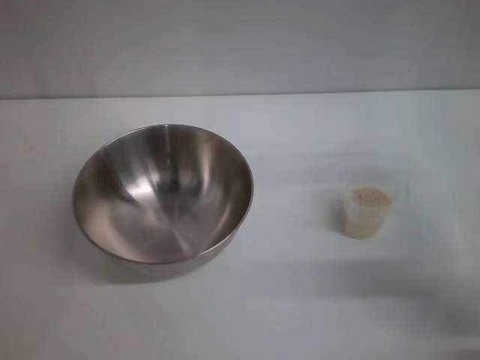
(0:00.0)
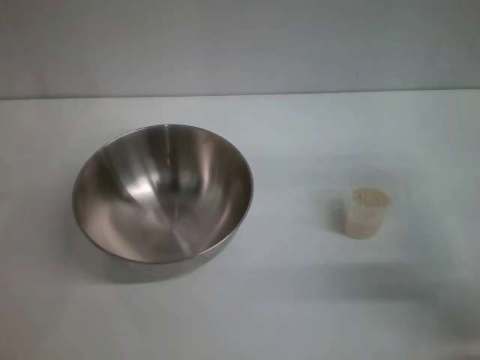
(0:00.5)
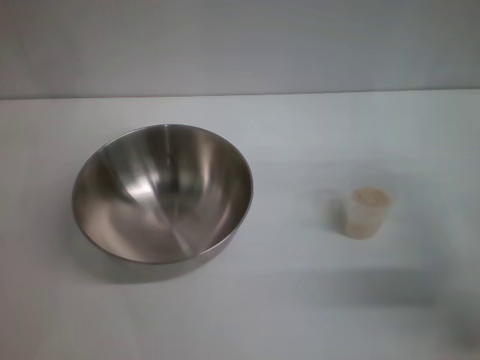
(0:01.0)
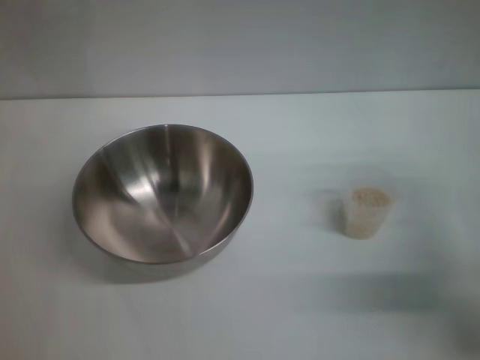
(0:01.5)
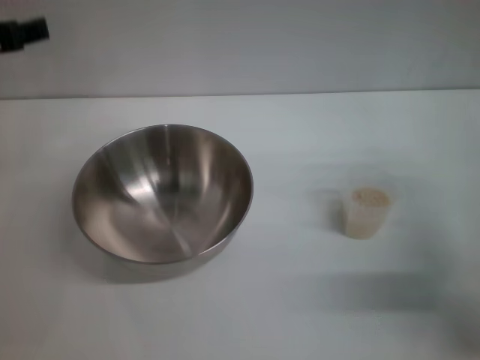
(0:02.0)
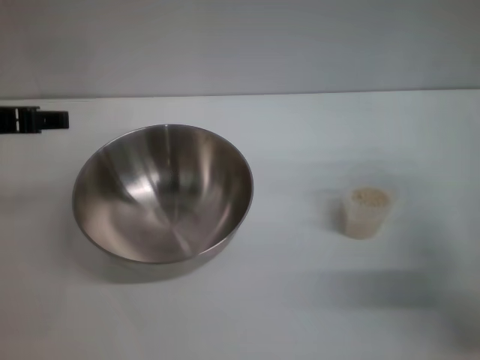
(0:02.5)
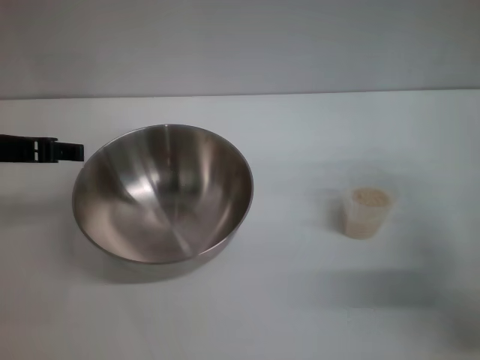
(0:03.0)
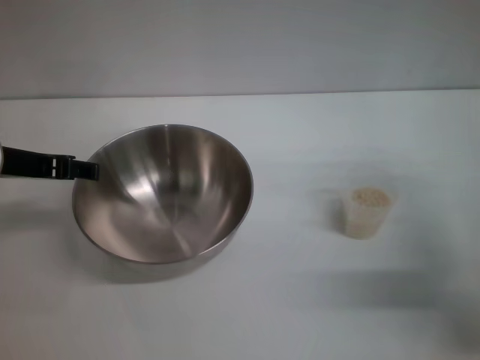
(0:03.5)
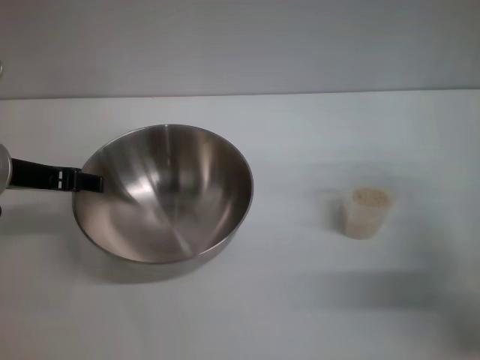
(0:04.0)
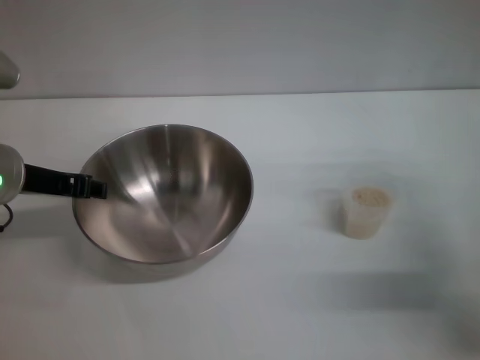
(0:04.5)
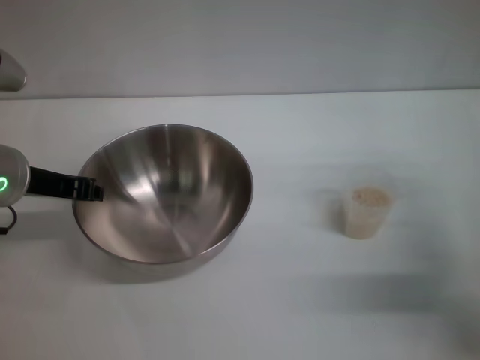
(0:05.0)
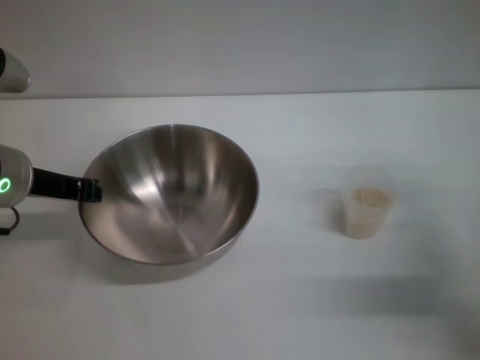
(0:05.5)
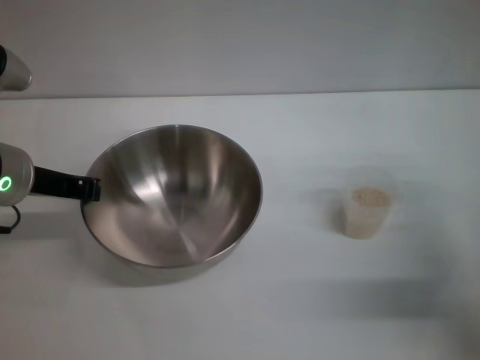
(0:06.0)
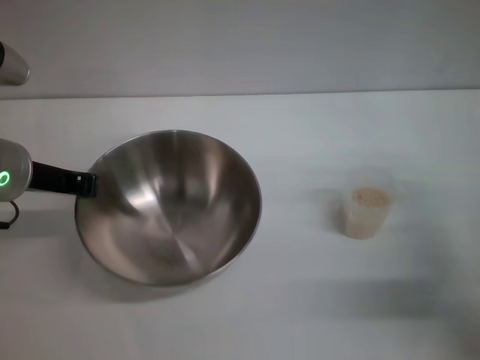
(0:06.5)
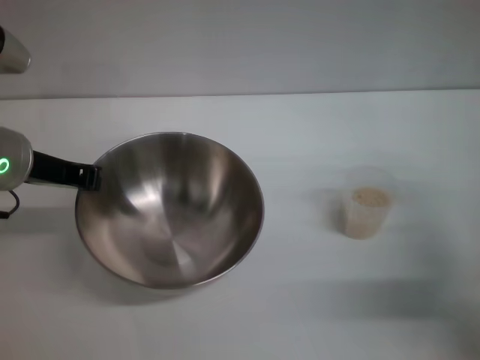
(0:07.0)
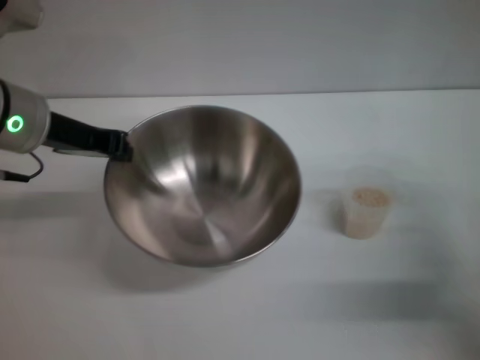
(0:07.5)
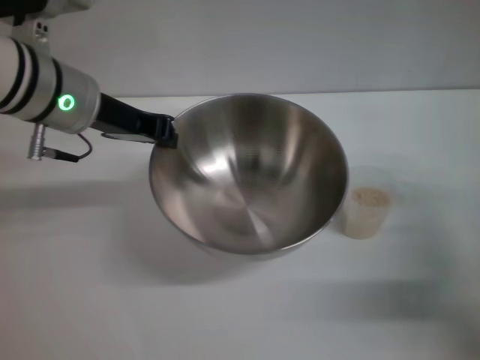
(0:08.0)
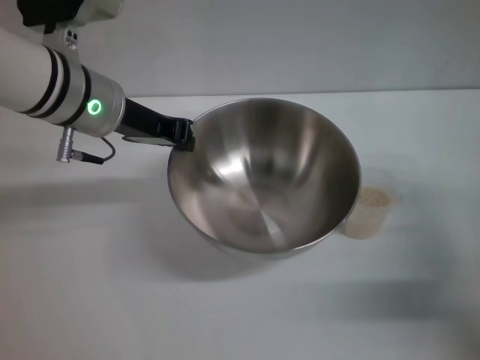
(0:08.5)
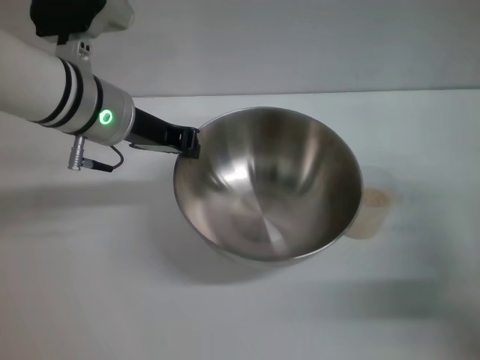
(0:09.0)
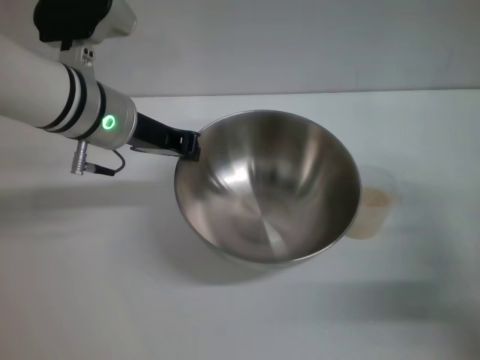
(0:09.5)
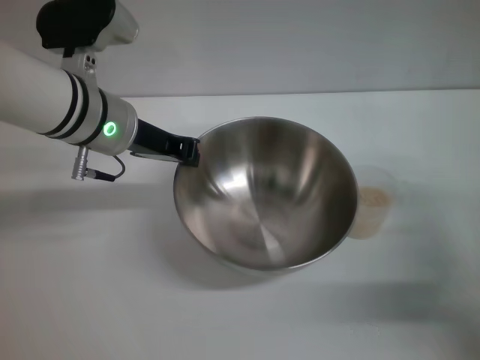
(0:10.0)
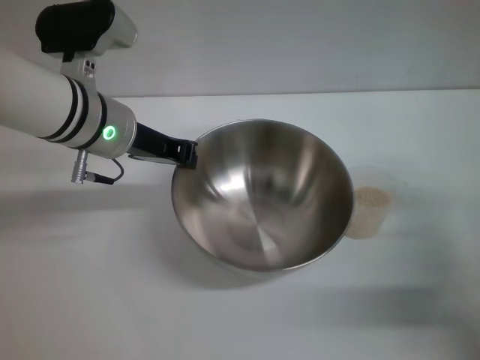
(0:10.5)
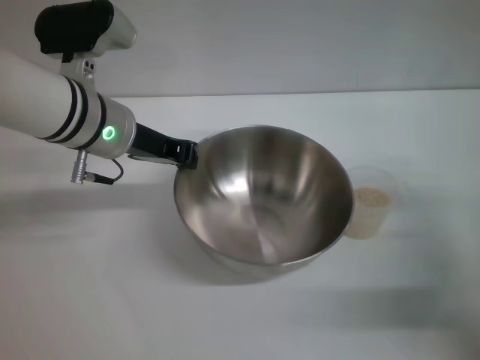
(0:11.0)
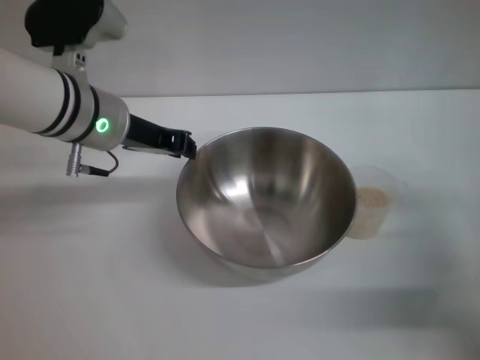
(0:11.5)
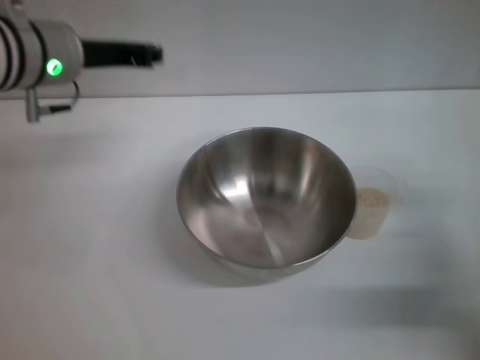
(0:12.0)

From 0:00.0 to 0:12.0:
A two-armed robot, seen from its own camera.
Task of the whole recording: Place the bowl in the middle of the table with one hand and pour the rice from the grain cup into it with the other hand.
Step, from 0:00.0 to 0:07.5: Pick up the bowl with the left gripper.
Step, from 0:08.0 to 0:11.5: Place the bowl in the center of view with the left gripper.
From 0:00.0 to 0:02.0: The left gripper shifts about 15 cm upward.
From 0:02.0 to 0:04.0: The left gripper is displaced downward by some 10 cm.
From 0:04.0 to 0:06.0: The left gripper closes its fingers.
From 0:06.0 to 0:08.0: The left gripper moves to the right, roughly 5 cm.
From 0:10.0 to 0:12.0: The left gripper moves upward, some 5 cm.

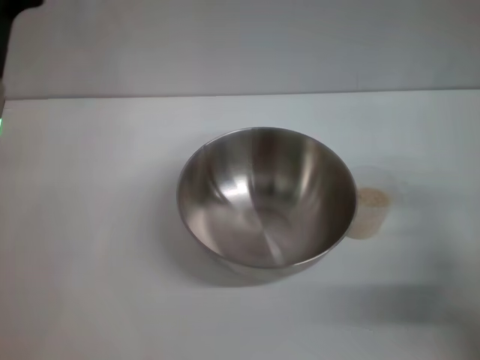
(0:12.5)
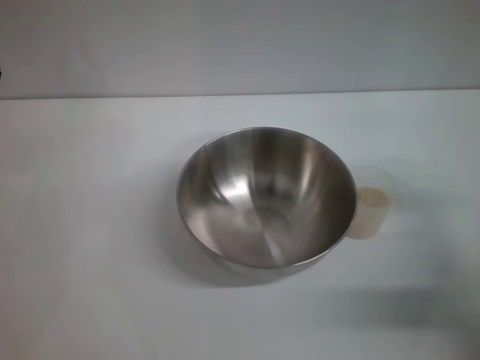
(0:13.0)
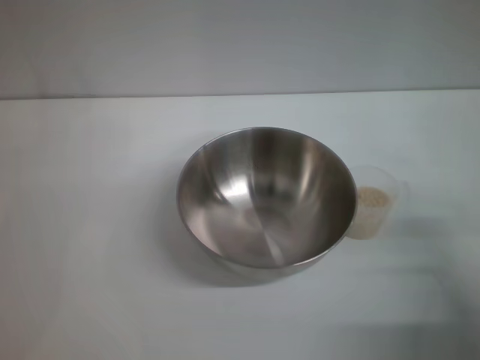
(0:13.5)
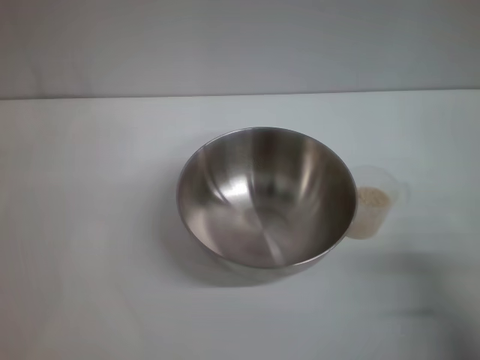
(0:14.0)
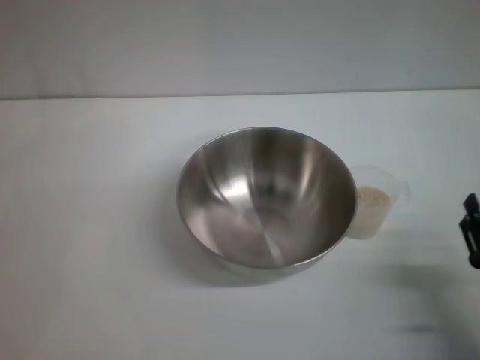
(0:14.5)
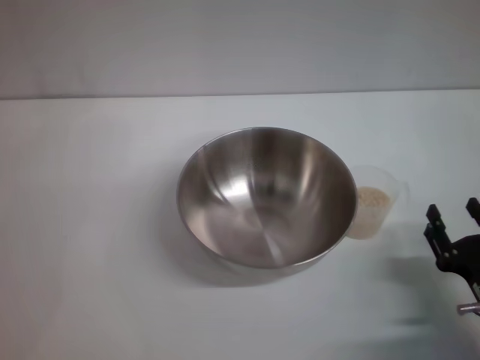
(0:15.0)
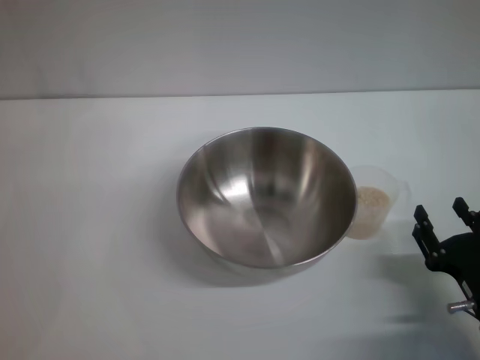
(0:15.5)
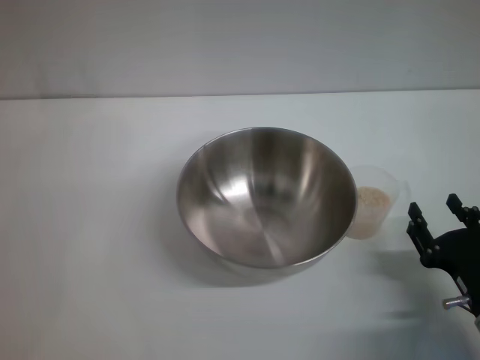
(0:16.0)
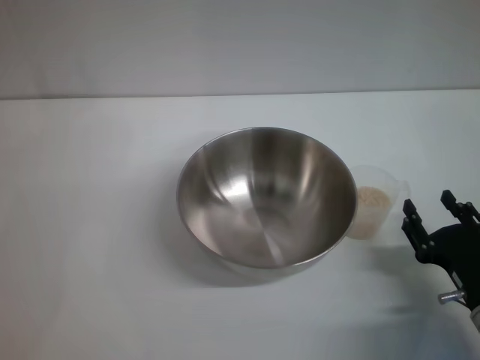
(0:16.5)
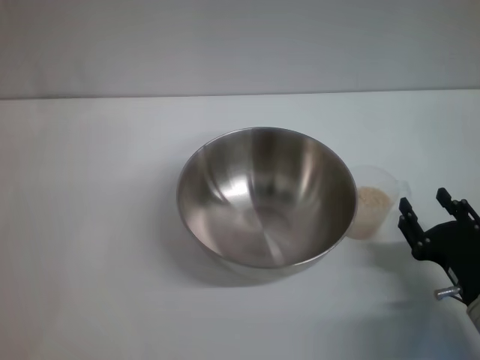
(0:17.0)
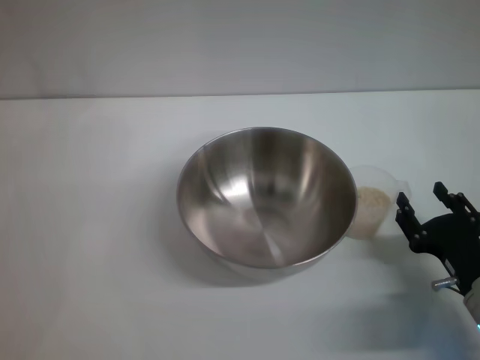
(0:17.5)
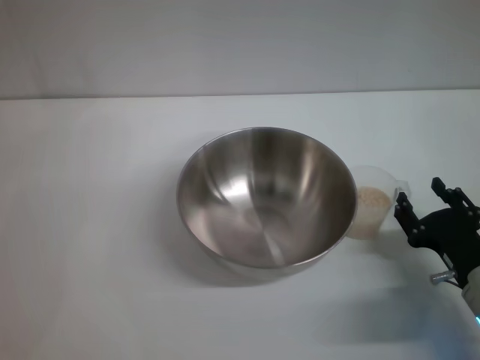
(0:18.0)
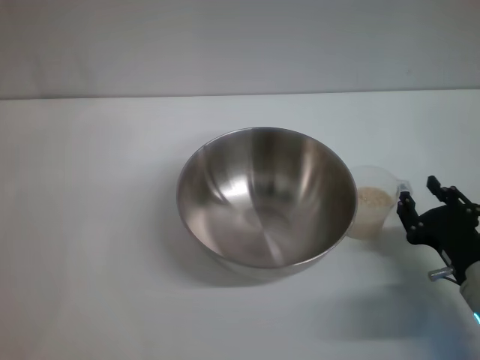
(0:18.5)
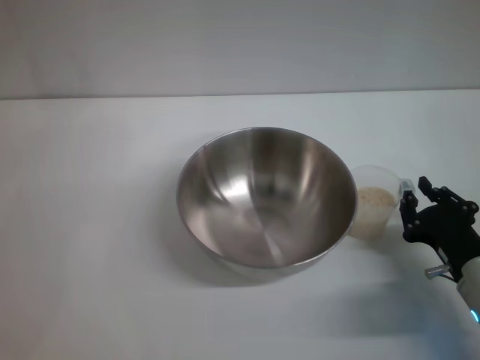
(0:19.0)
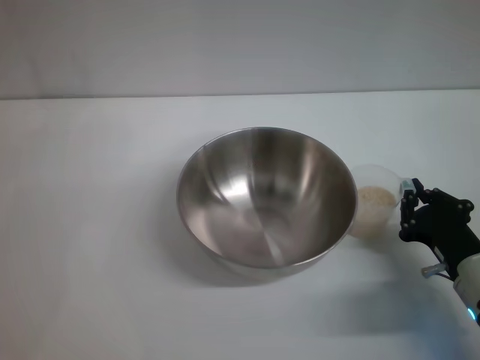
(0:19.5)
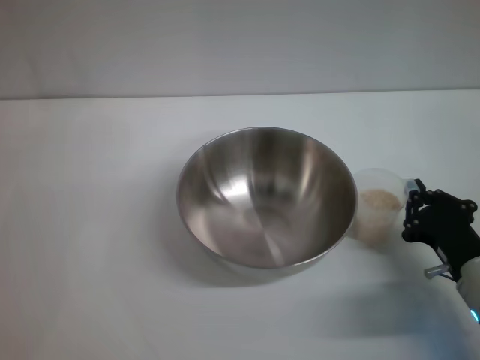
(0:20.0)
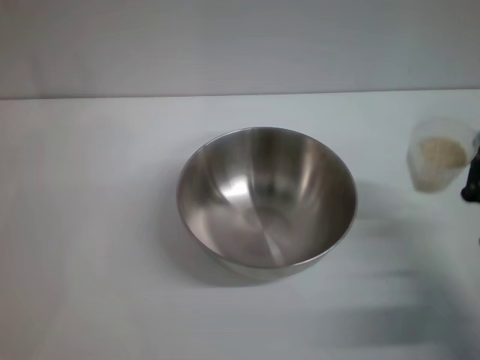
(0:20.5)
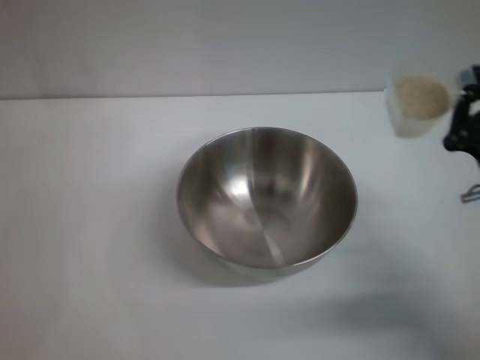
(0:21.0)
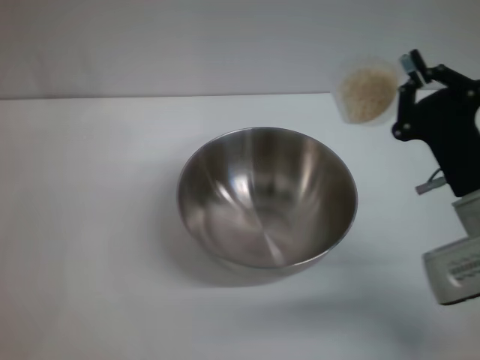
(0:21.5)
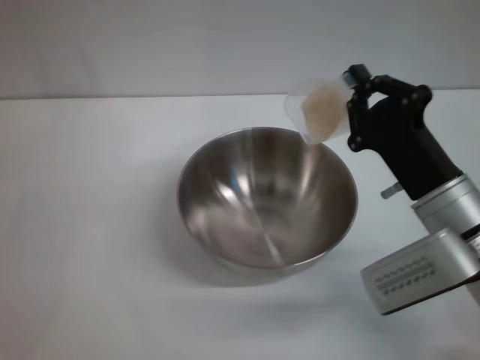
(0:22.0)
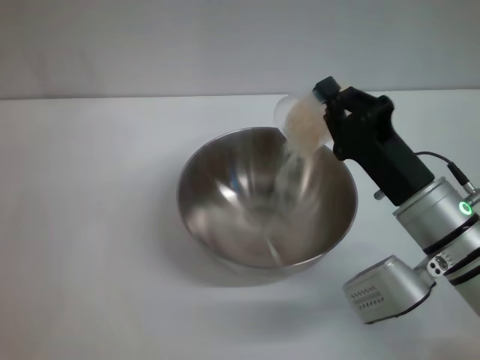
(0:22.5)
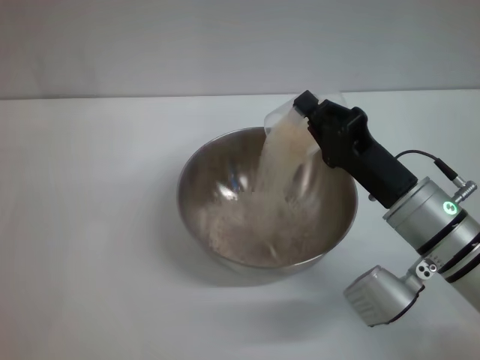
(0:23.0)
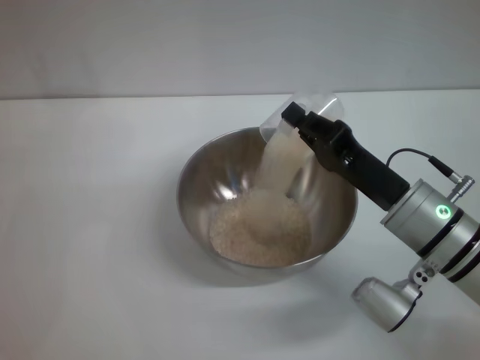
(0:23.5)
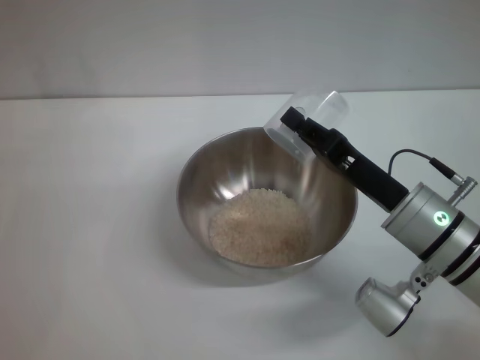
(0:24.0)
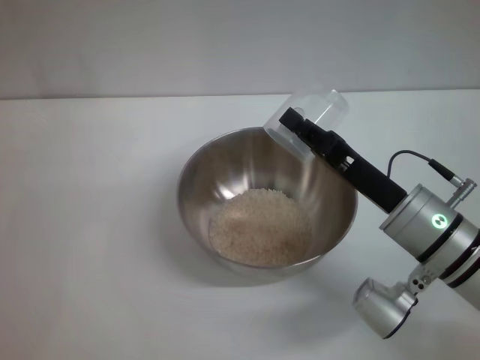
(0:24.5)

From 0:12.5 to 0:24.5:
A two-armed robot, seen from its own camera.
Task of the whole recording: Place the bowl in the middle of the table with one hand and pour the rice from the grain cup into it with the other hand.
Step, from 0:12.5 to 0:20.0: Pick up the cup with rice in it with the right gripper.
Step, from 0:20.5 to 0:24.5: Pour the rice from the cup into the bowl with the right gripper.
From 0:12.5 to 0:14.5: The right gripper is displaced backward and downward by approximately 15 cm. Meanwhile the left gripper is displaced downward and to the left by some 10 cm, and opens its fingers.
From 0:14.5 to 0:16.5: The grippers stay close to where they were, moving slightly.
From 0:16.5 to 0:18.5: The grippers make only small movements.
From 0:18.5 to 0:20.5: The right gripper closes.
From 0:20.5 to 0:22.5: The right gripper goes some 10 cm to the left and forward.

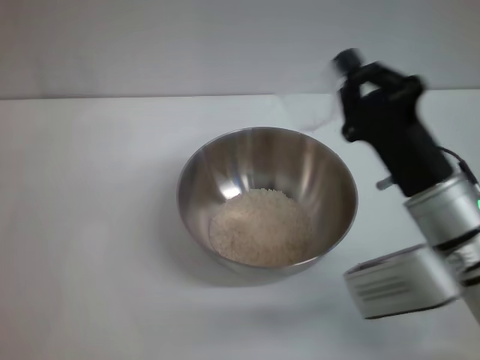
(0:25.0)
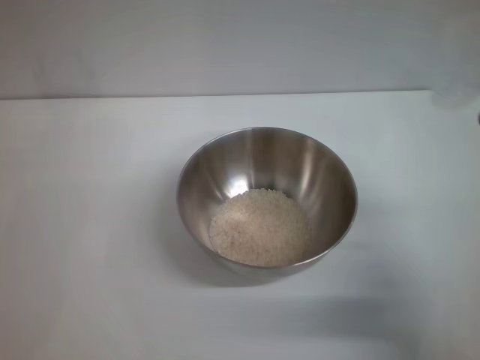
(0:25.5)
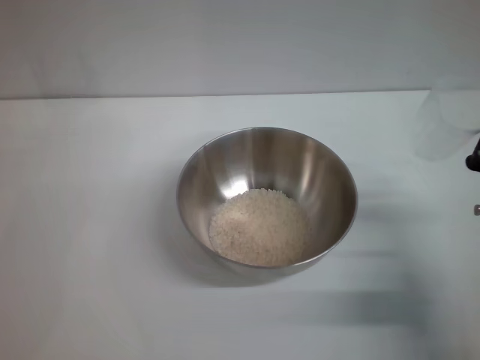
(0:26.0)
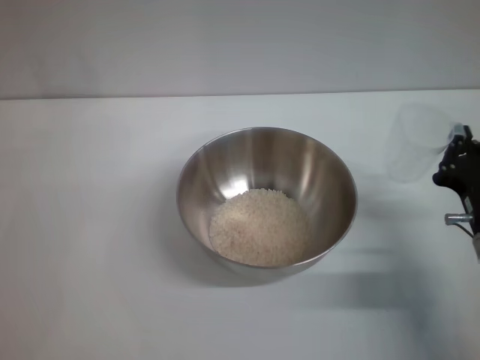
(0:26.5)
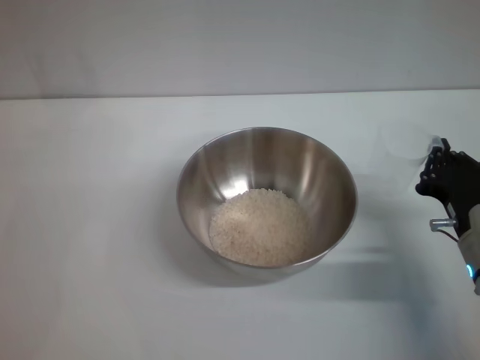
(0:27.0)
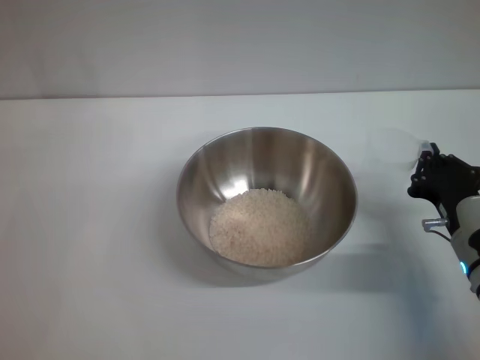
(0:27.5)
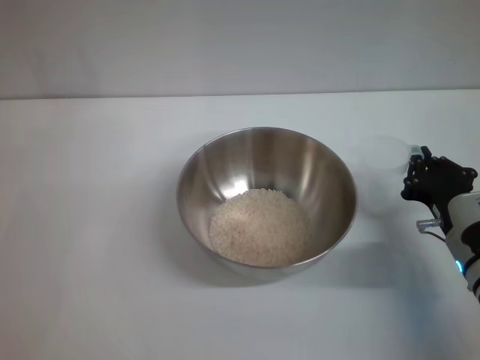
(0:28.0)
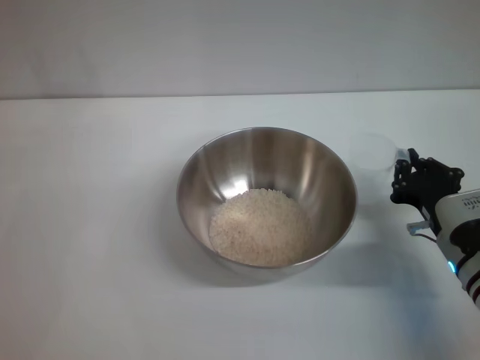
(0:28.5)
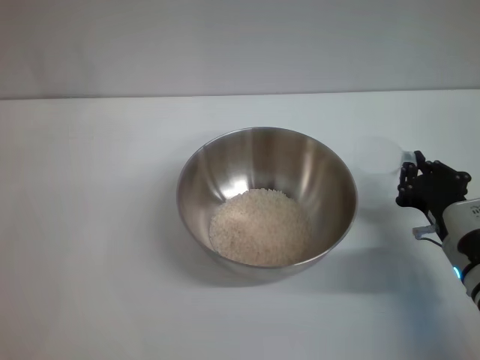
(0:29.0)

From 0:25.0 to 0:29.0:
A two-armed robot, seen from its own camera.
Task of the whole recording: Place the bowl in the middle of the table with one hand and pour the rice from the grain cup into it with the other hand.
From 0:25.0 to 0:27.0: The right gripper is displaced downward and to the right by approximately 10 cm.
From 0:27.0 to 0:29.0: The grippers move only a little.
